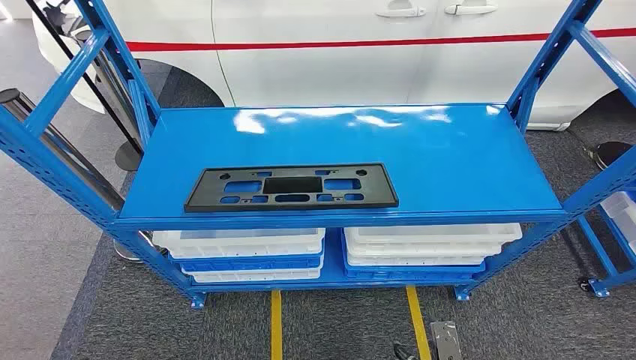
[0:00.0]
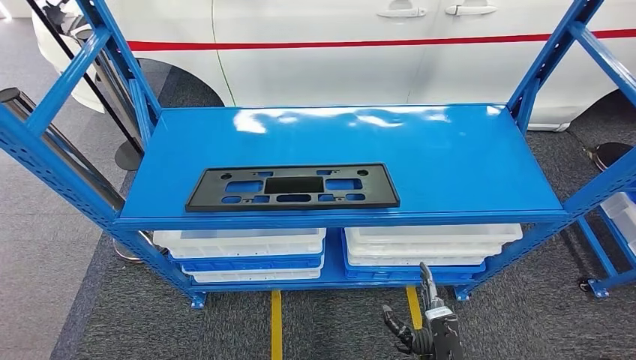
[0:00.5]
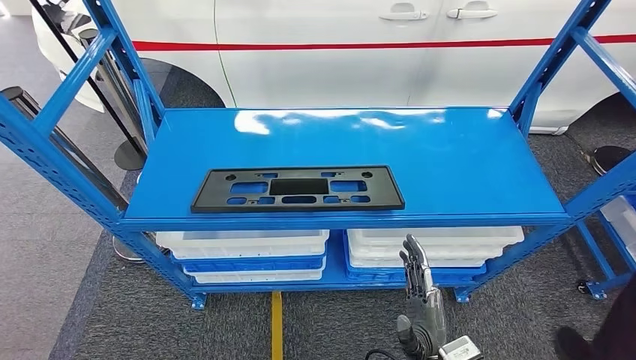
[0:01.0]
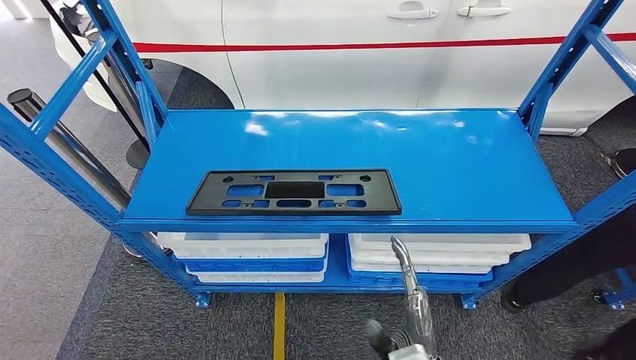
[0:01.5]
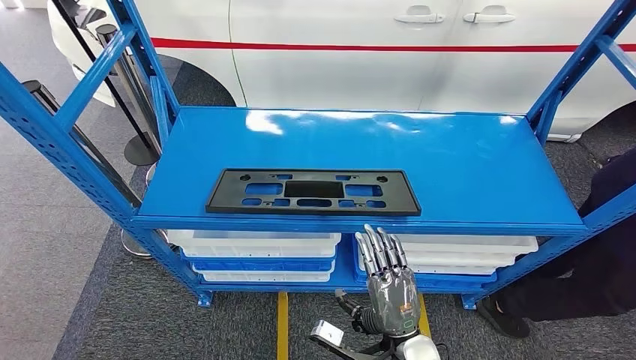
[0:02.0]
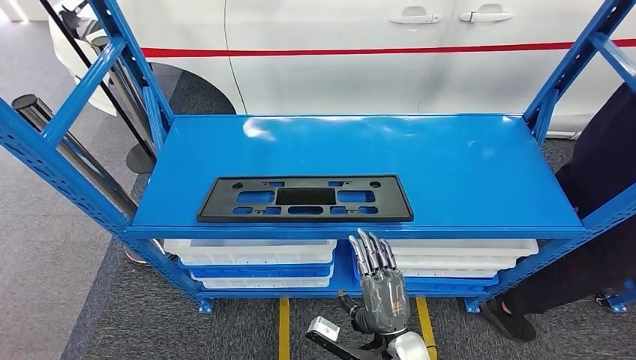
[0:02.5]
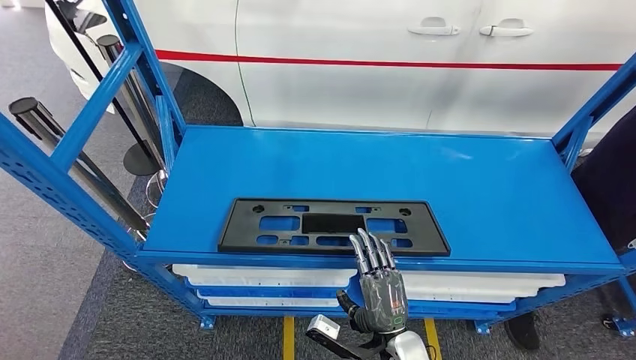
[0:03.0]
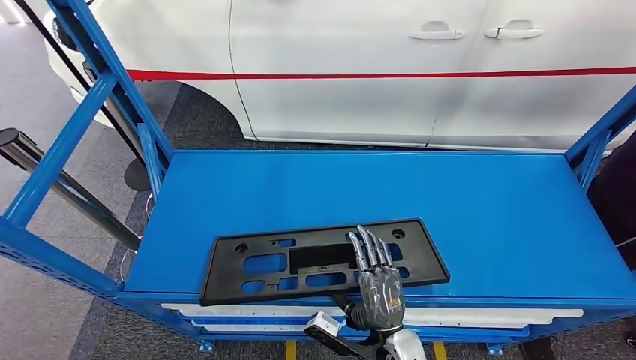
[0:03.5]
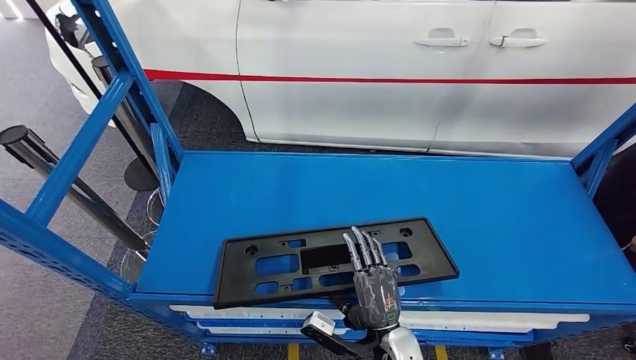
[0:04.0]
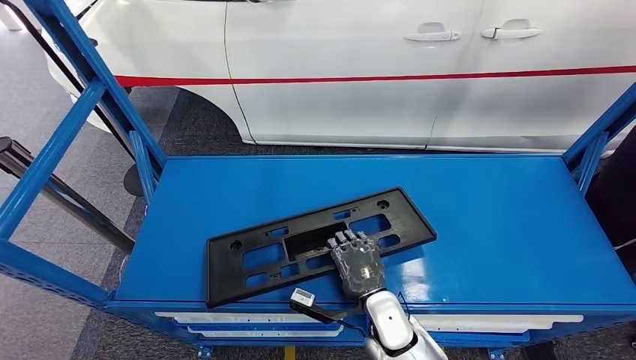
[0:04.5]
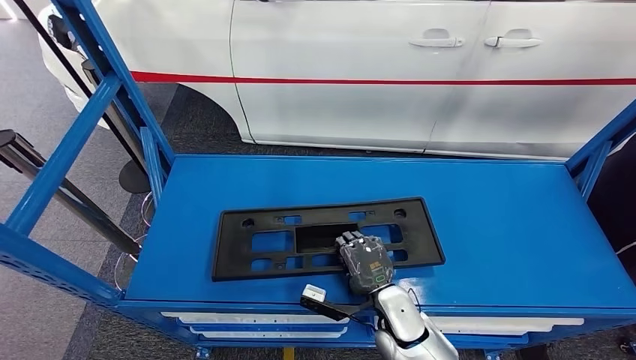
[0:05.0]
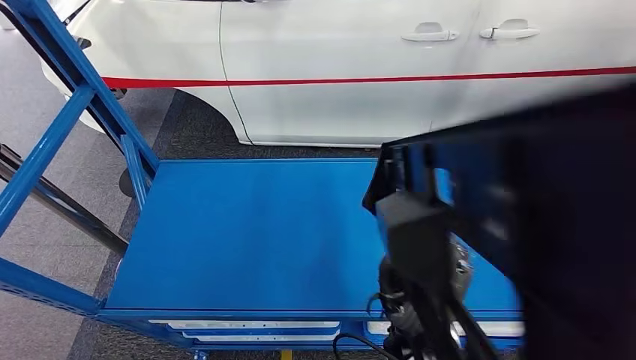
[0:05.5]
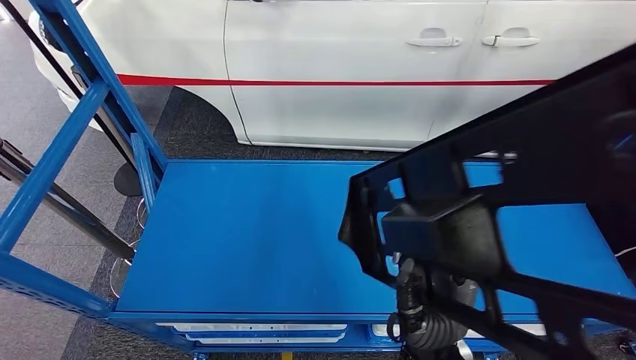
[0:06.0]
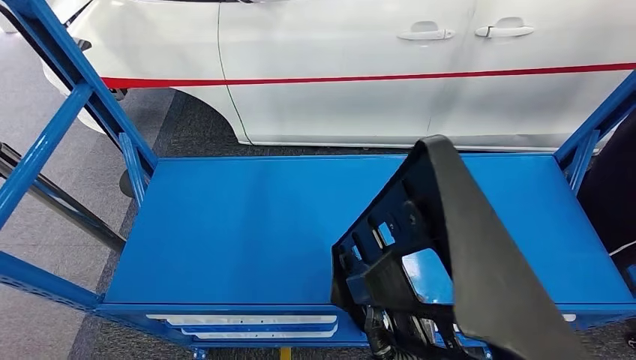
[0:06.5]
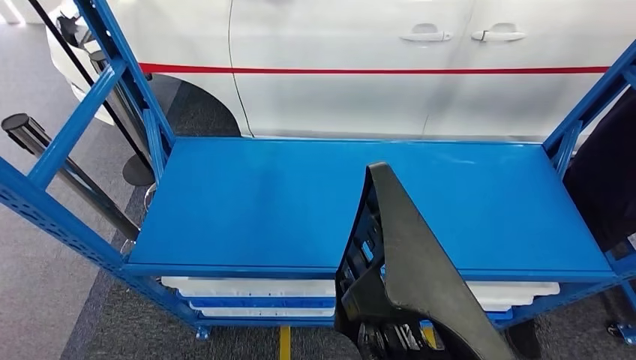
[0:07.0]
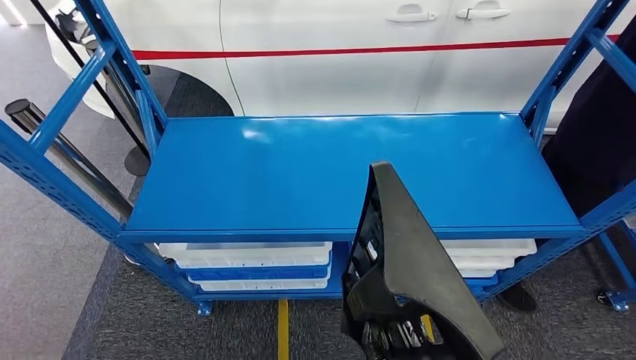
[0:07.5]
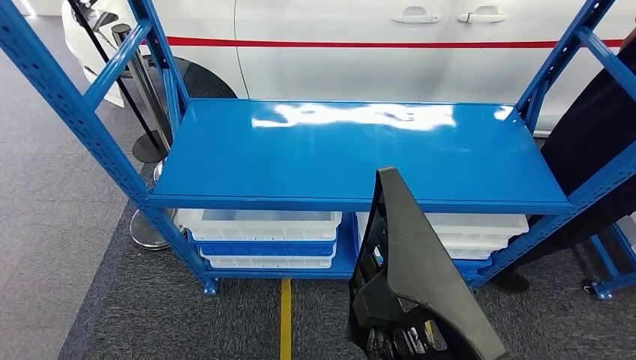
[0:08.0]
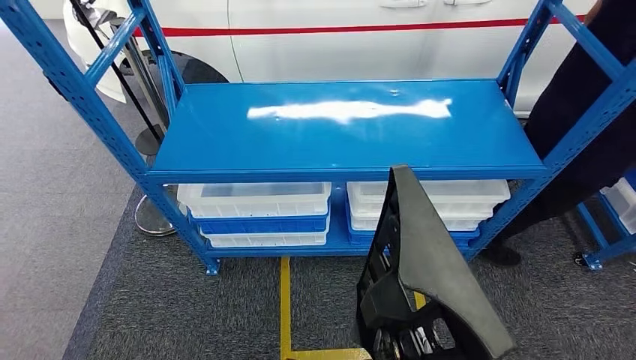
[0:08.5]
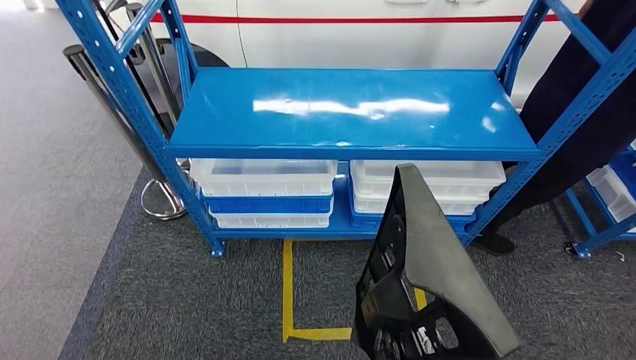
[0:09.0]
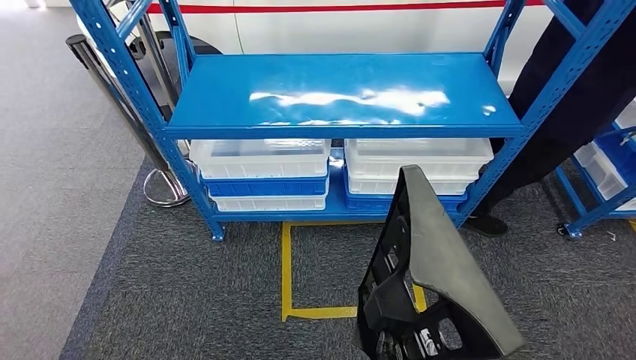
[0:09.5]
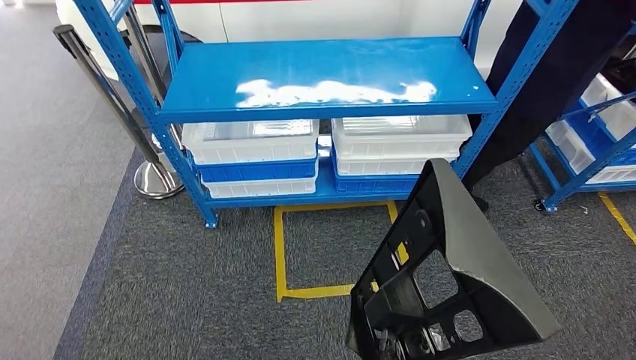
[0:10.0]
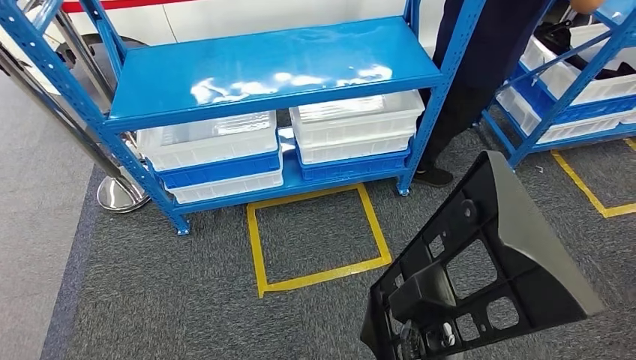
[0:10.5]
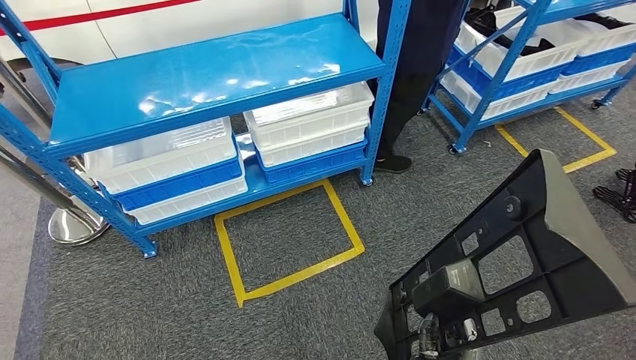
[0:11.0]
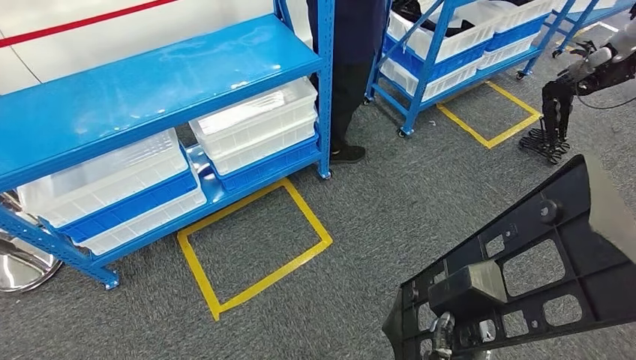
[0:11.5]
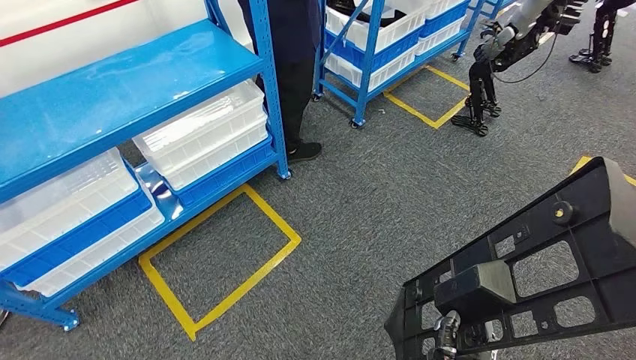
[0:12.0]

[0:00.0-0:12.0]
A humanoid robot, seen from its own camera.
Step, 0:00.0 to 0:08.0: Pick up the large material from the shelf.

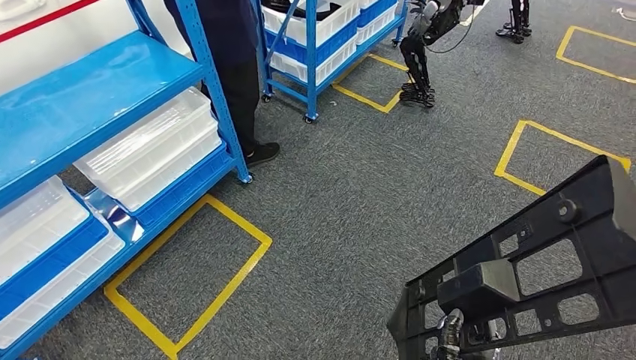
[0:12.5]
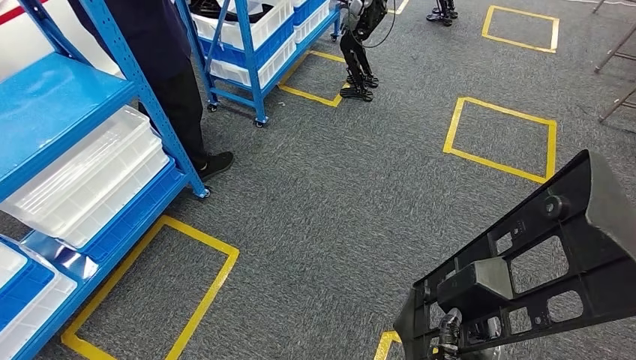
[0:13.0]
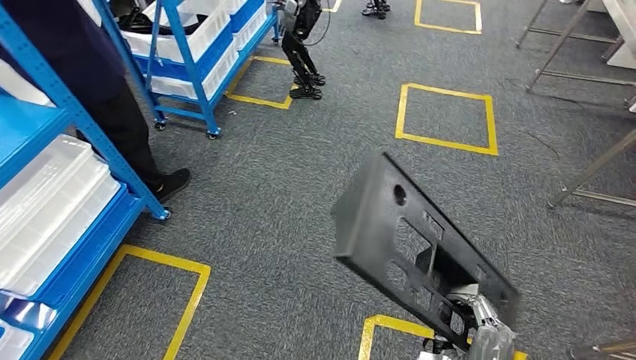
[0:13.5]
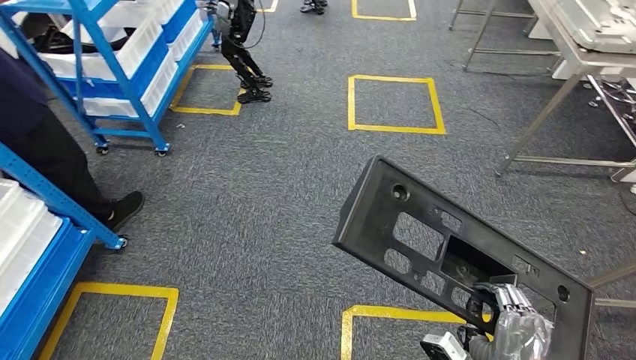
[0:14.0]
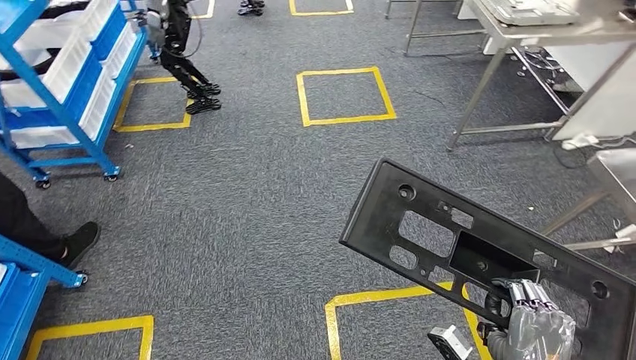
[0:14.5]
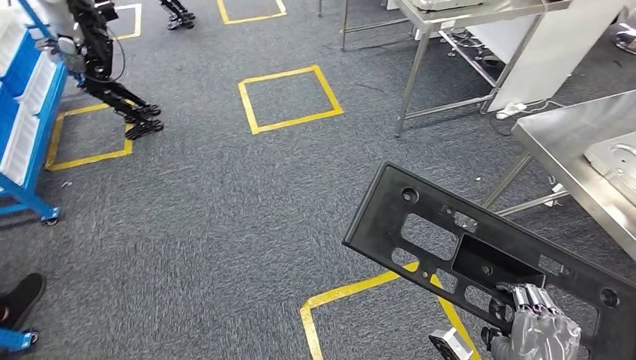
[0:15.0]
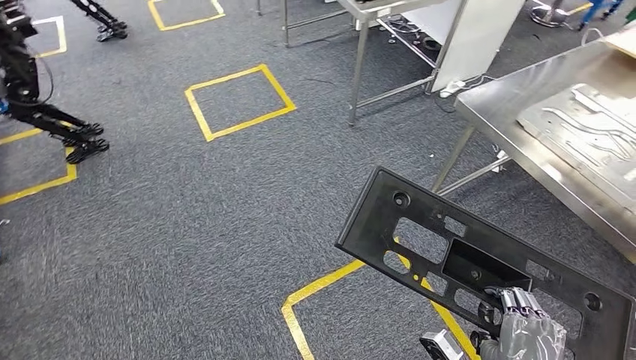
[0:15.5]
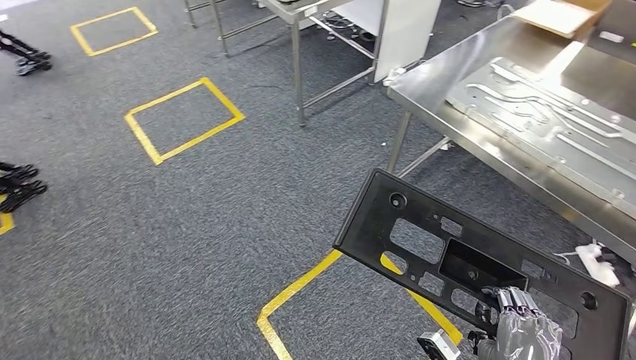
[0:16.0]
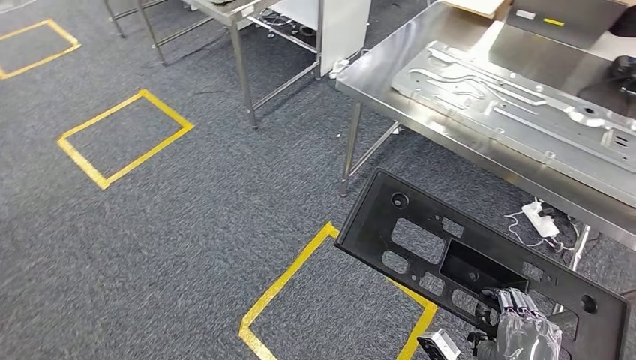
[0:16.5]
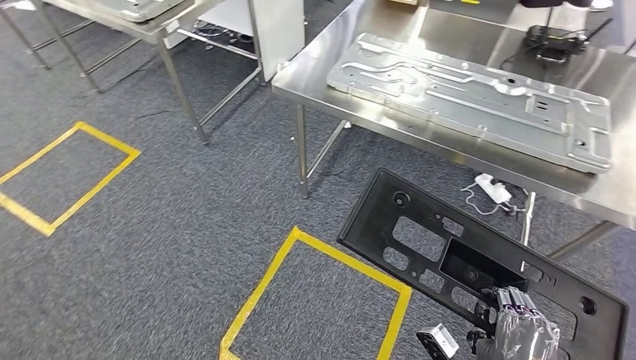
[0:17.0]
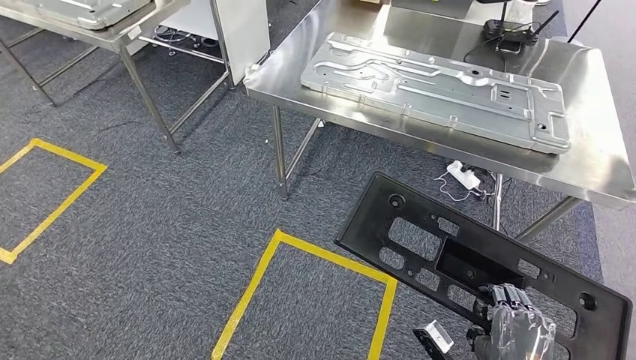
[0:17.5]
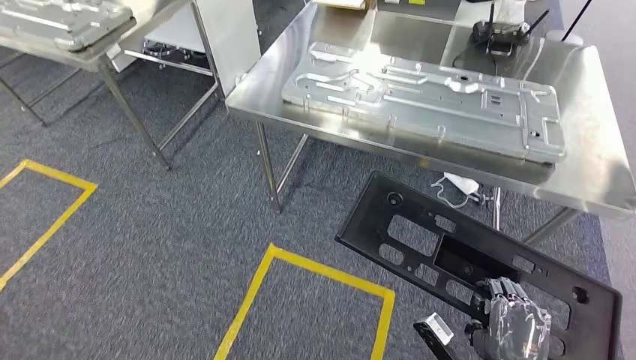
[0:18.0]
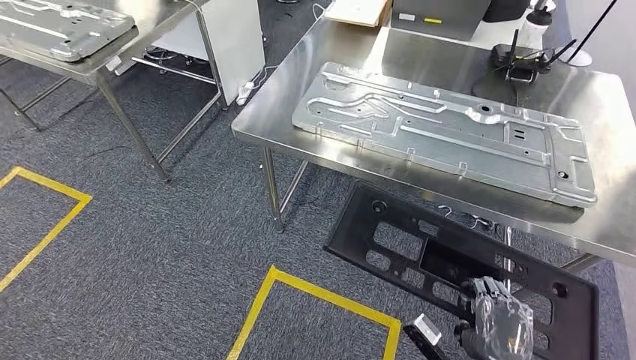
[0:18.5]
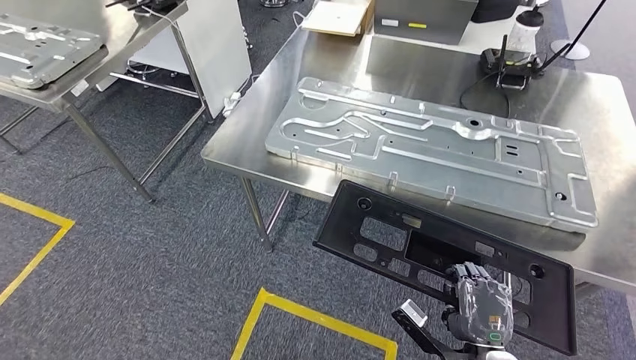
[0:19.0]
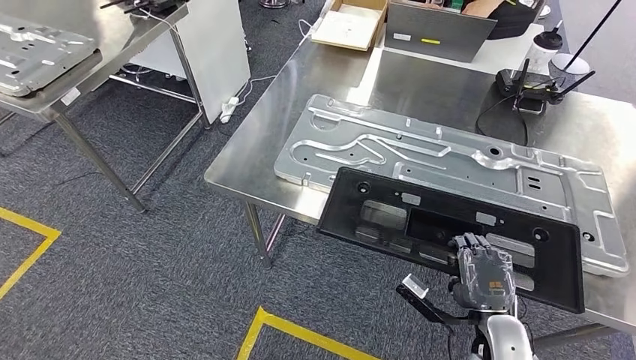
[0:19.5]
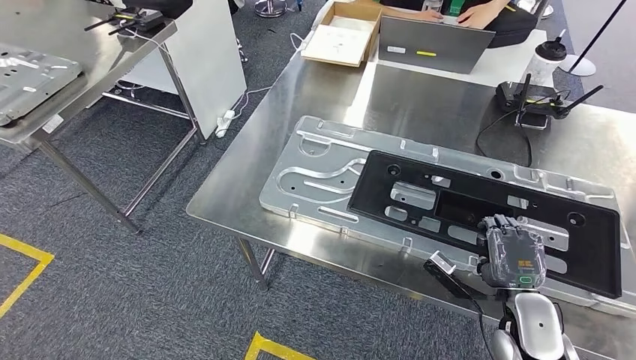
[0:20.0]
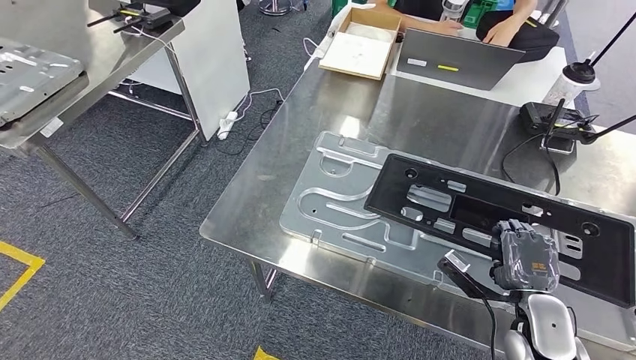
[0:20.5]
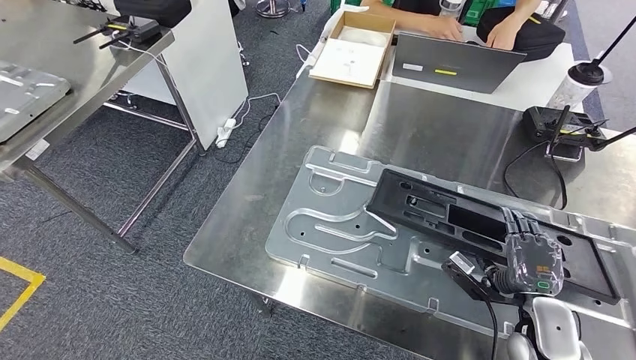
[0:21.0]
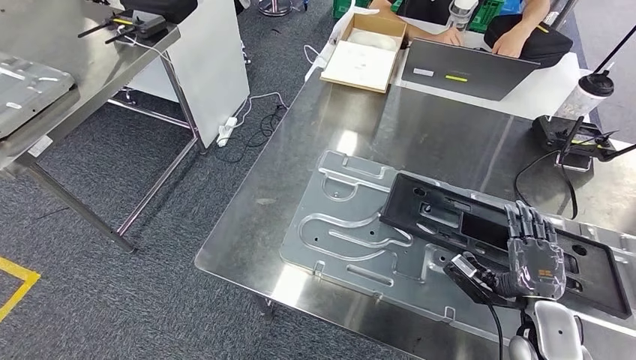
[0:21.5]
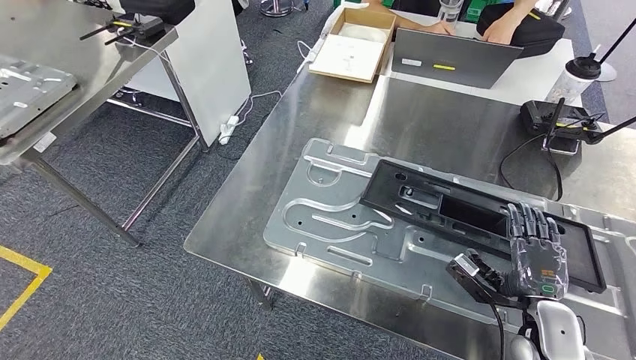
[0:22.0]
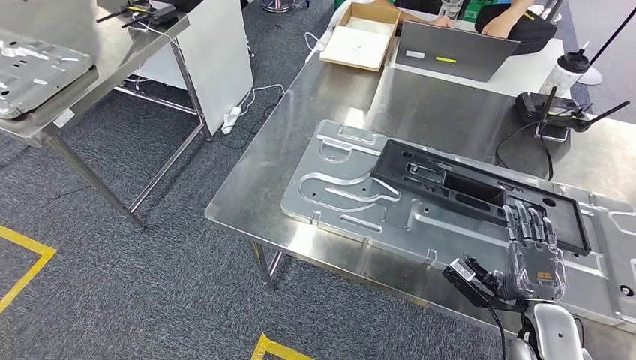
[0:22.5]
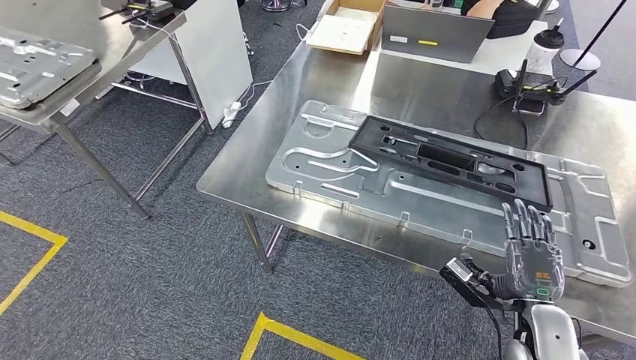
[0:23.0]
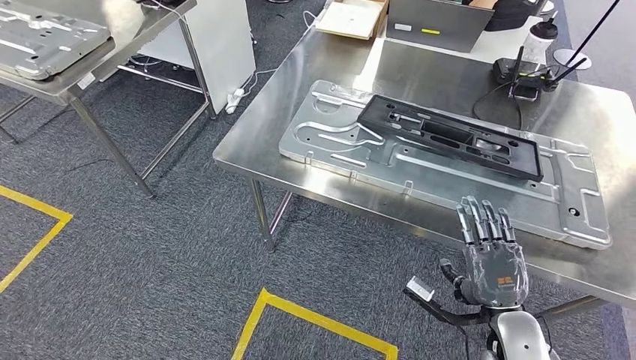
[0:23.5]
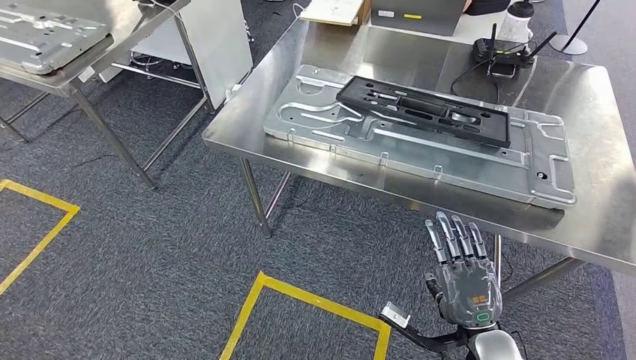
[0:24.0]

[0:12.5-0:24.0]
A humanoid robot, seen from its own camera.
Step, 0:12.5 to 0:19.0: Move the large material to the workbench.
